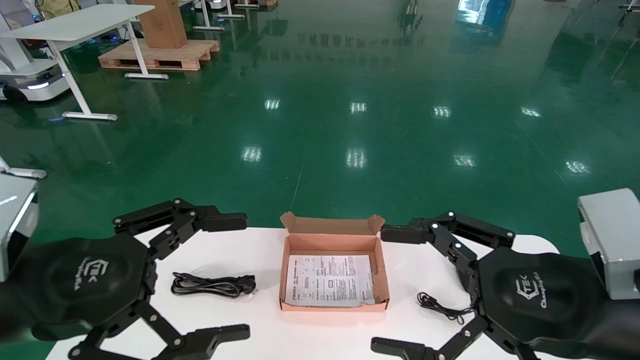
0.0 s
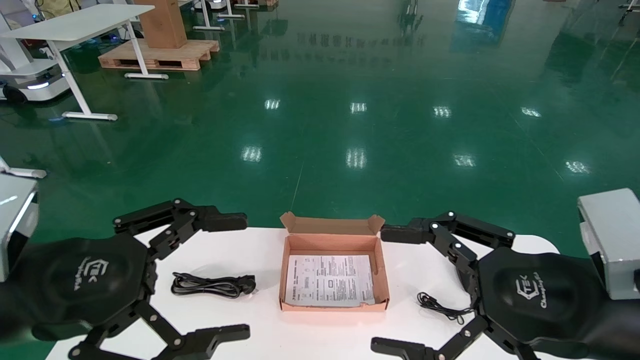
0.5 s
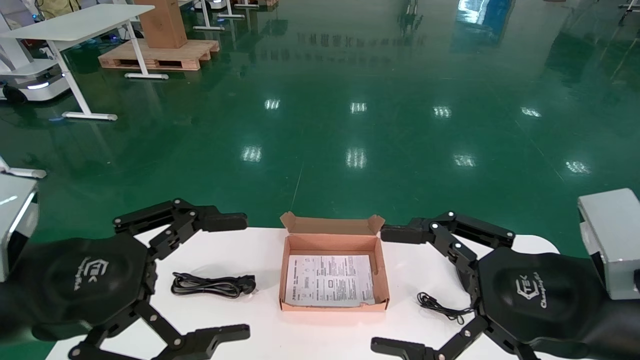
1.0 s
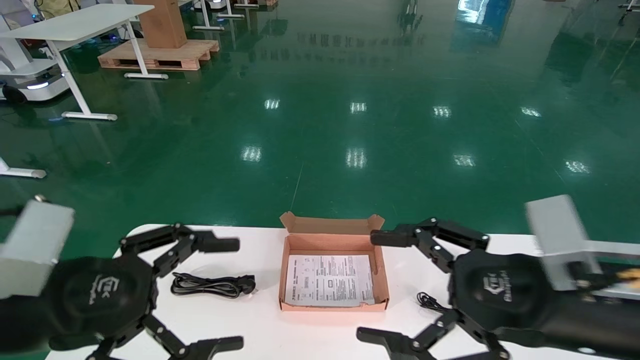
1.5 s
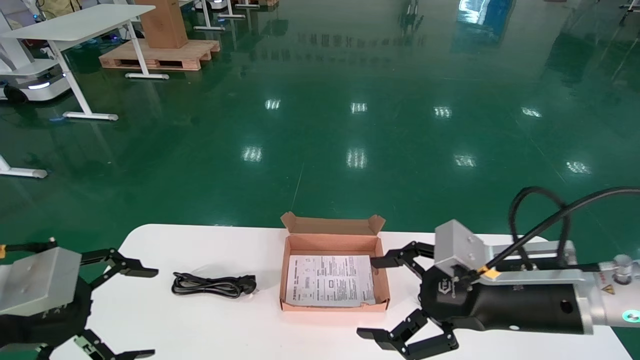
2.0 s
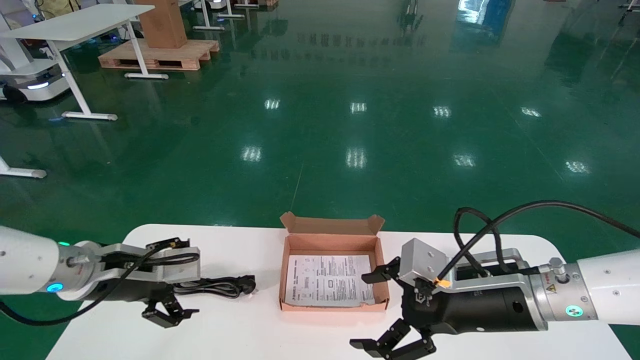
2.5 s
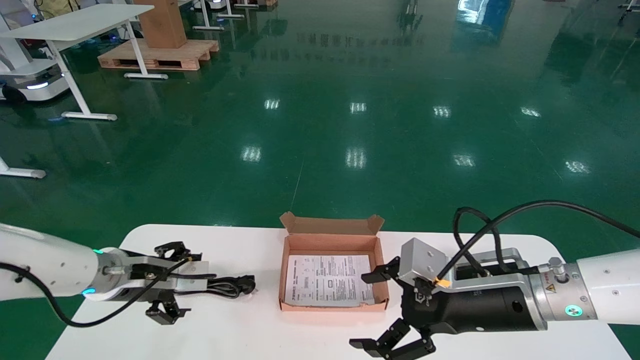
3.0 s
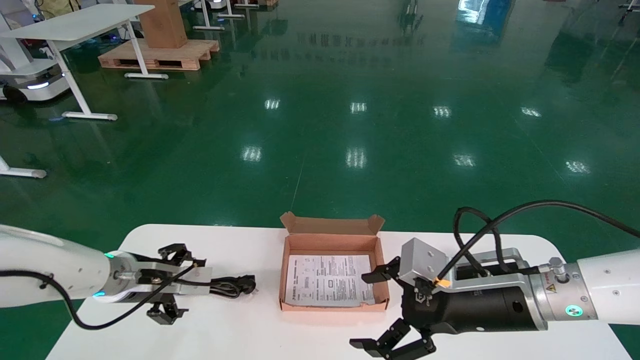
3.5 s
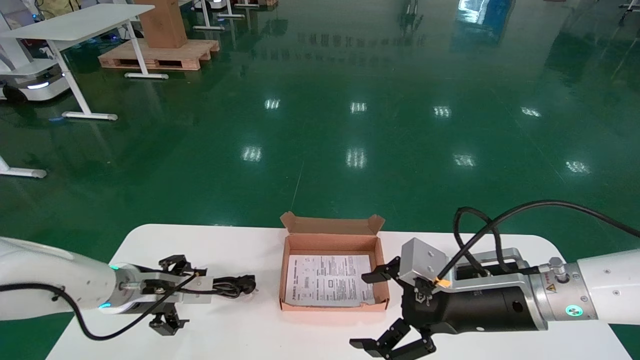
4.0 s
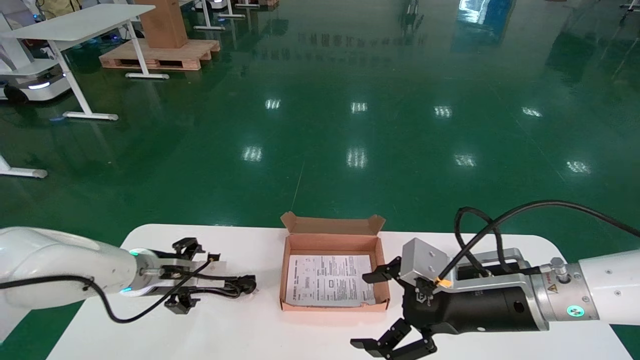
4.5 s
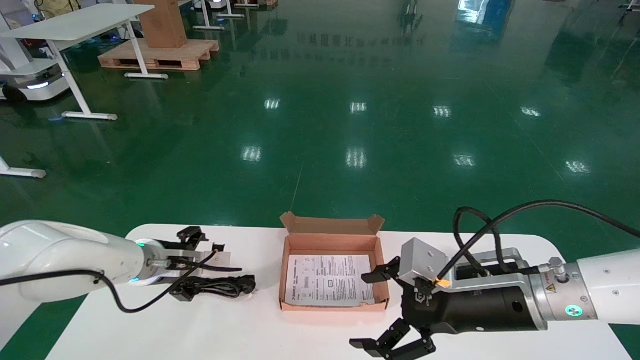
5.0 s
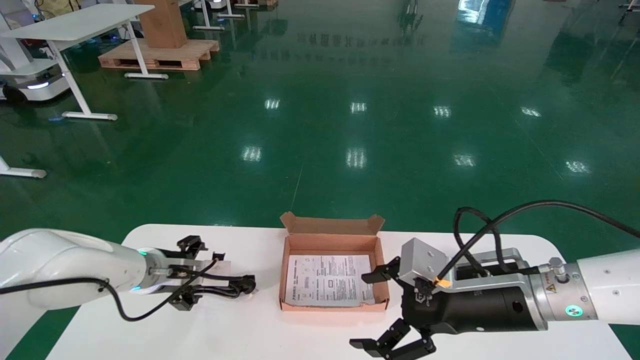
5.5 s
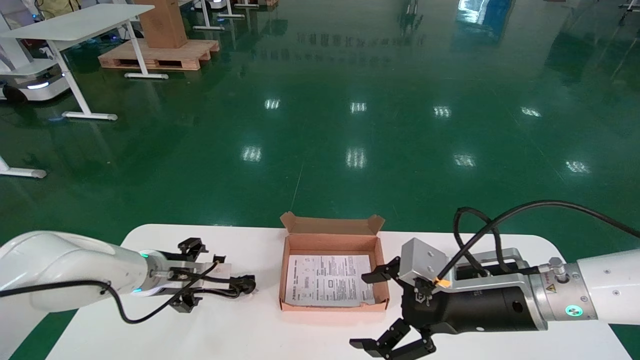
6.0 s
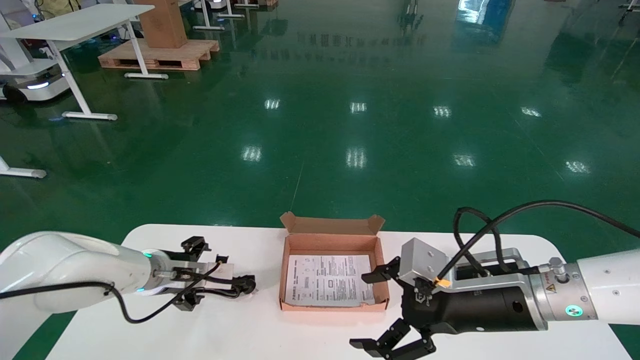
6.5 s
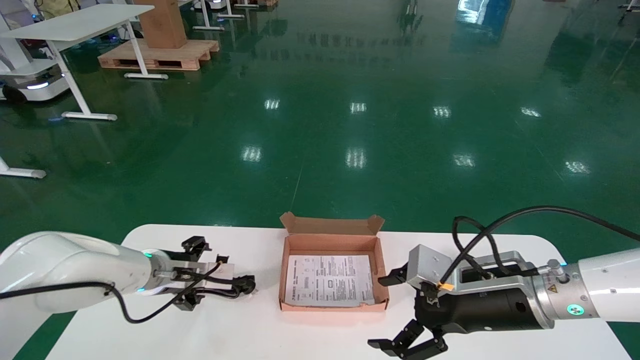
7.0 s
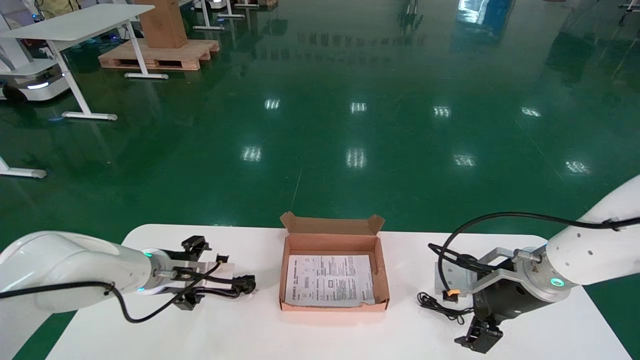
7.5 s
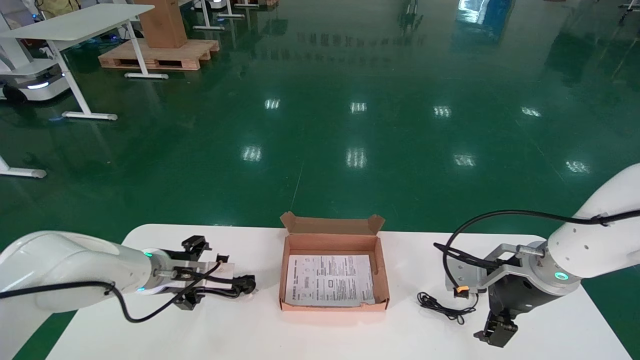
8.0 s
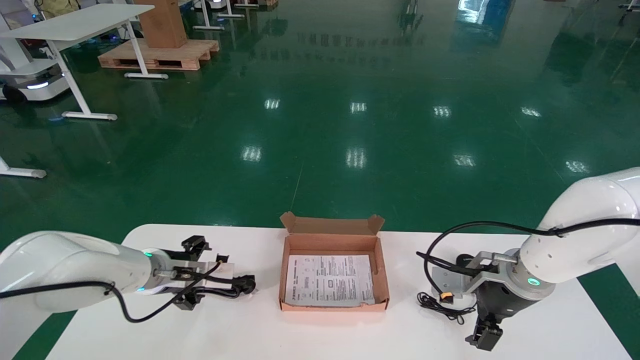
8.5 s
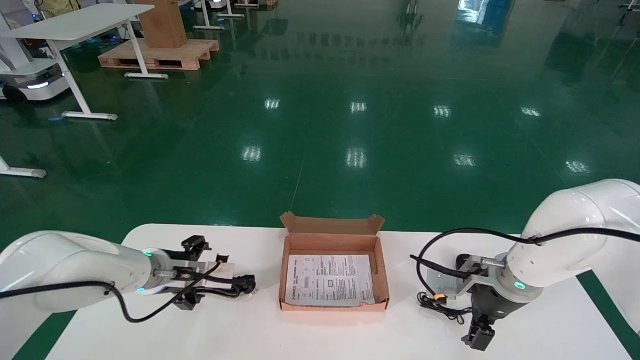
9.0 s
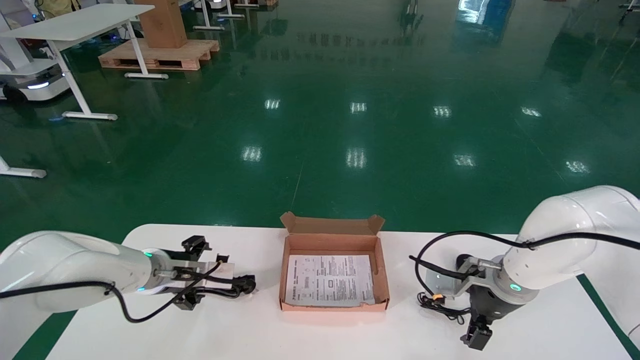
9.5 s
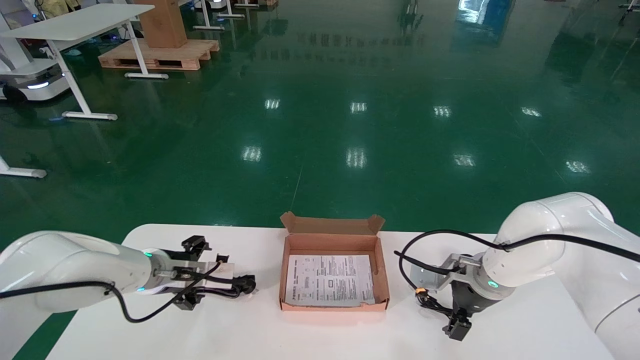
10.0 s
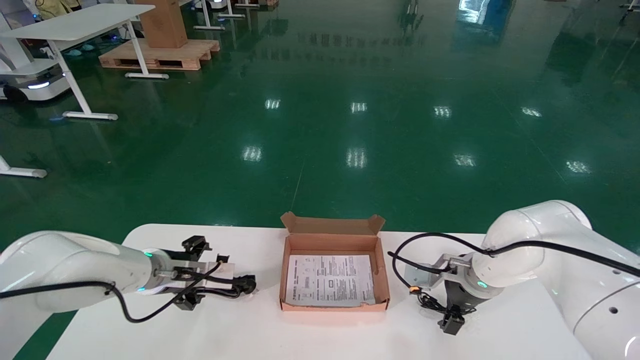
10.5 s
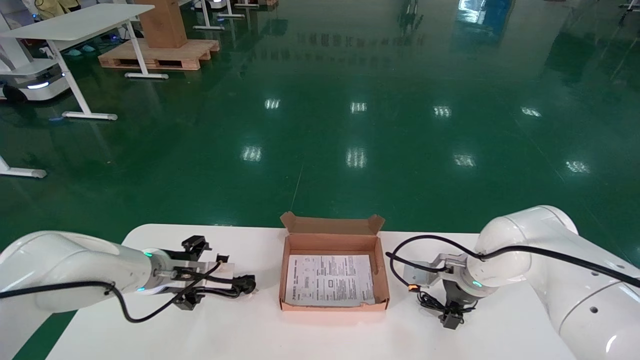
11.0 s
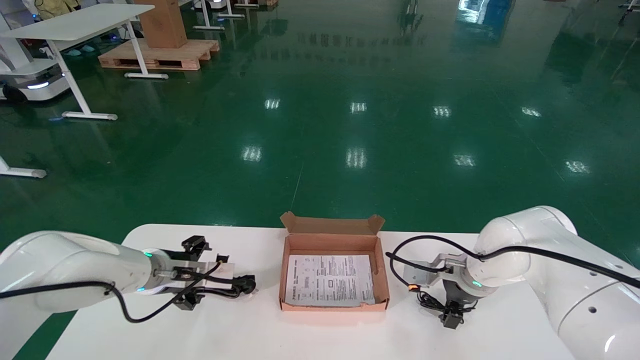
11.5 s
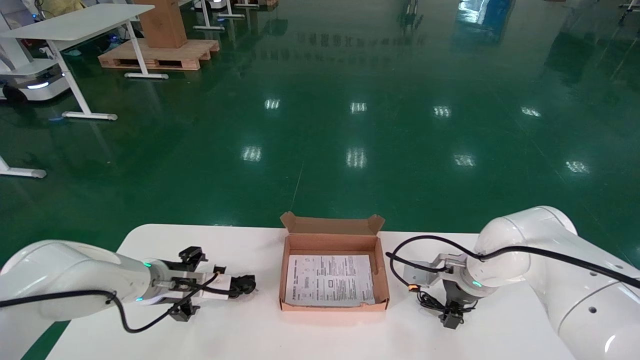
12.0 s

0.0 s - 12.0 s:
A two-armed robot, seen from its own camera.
0.0 s - 2.0 s: The right gripper moves forward, approximately 10 cm, while the left gripper is displaced to the left by roughly 5 cm.
2.0 s - 4.0 s: The left gripper heads forward and downward, covering about 20 cm.
4.0 s - 6.0 s: The left gripper shifts by roughly 5 cm.
6.0 s - 8.0 s: The right gripper changes place by approximately 5 cm.
8.0 s - 10.0 s: The right gripper goes approximately 5 cm forward.
10.0 s - 12.0 s: The right gripper moves some 5 cm.
